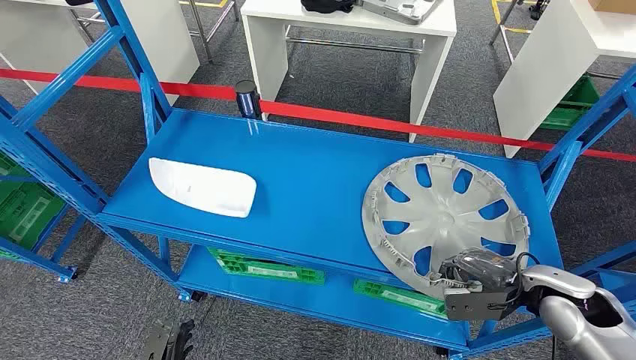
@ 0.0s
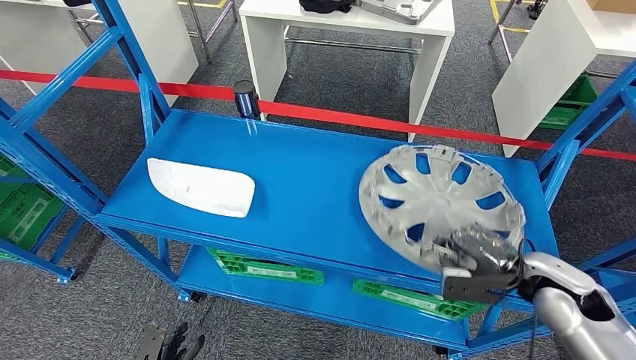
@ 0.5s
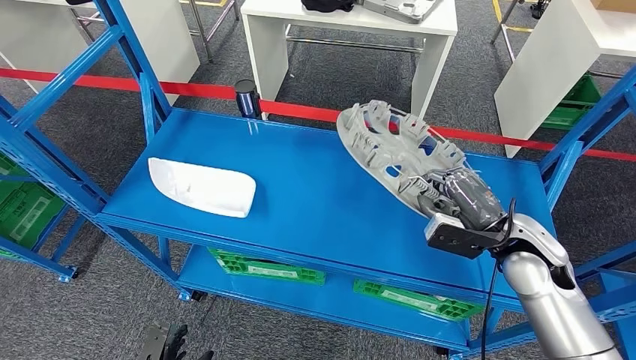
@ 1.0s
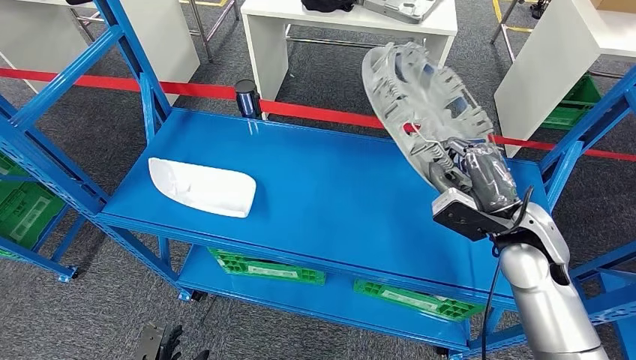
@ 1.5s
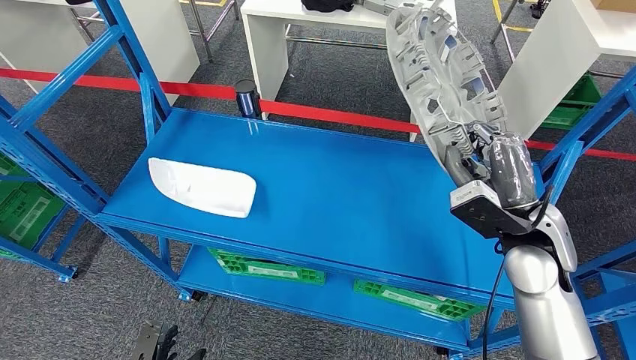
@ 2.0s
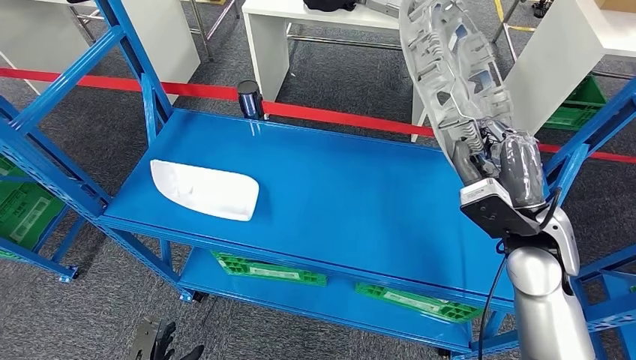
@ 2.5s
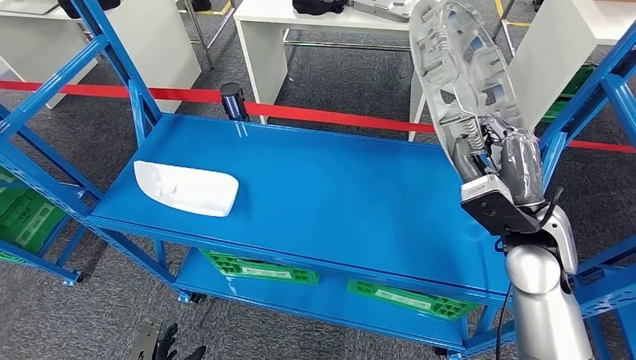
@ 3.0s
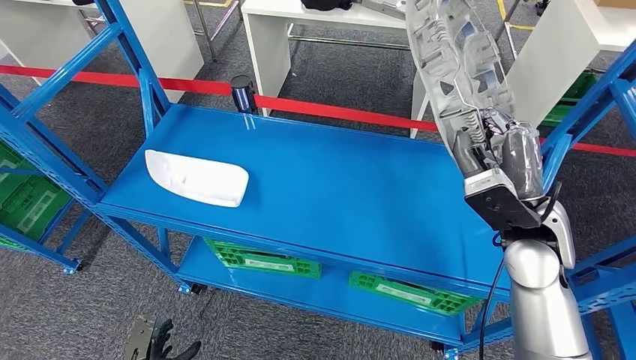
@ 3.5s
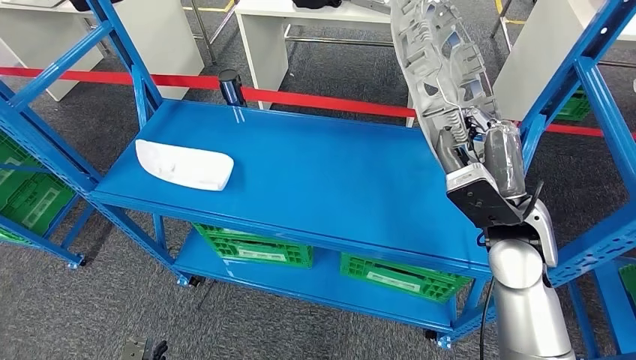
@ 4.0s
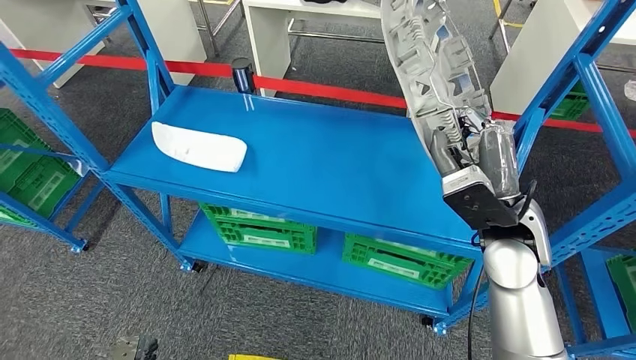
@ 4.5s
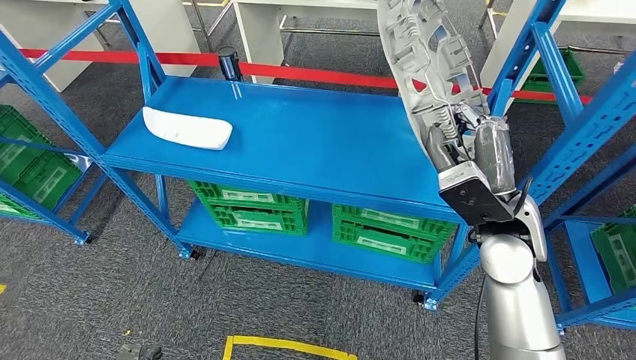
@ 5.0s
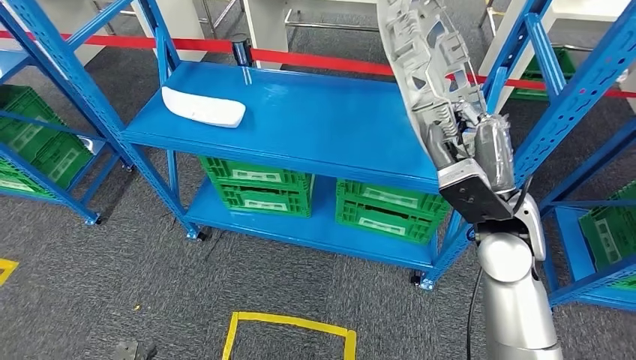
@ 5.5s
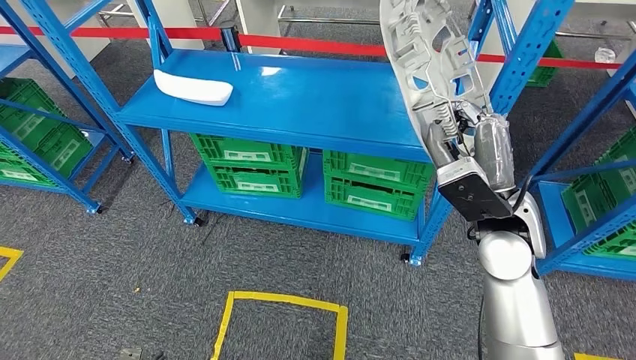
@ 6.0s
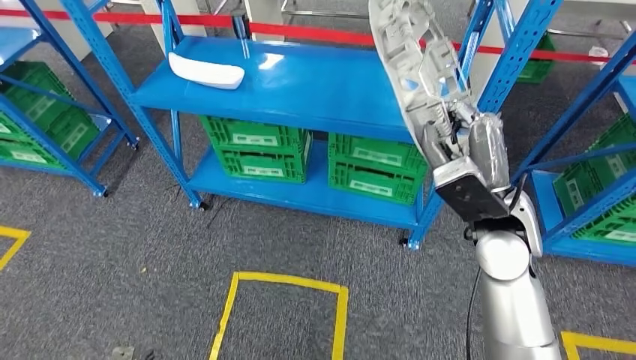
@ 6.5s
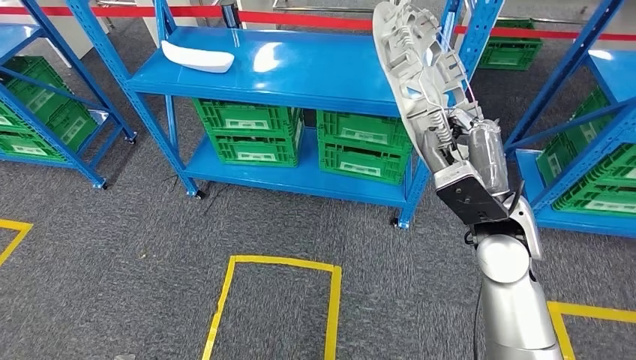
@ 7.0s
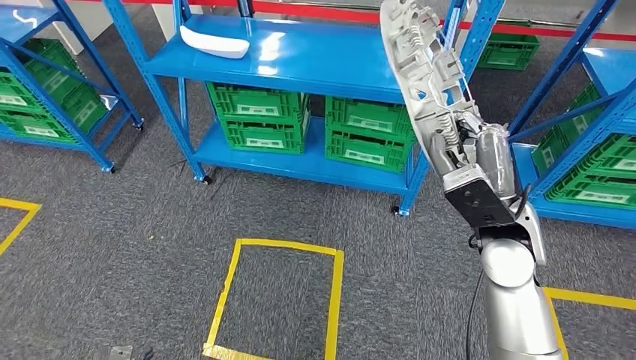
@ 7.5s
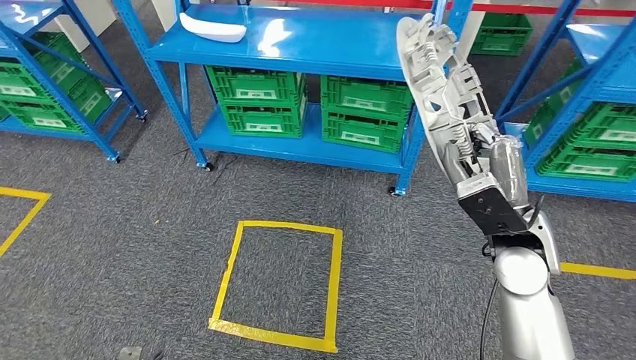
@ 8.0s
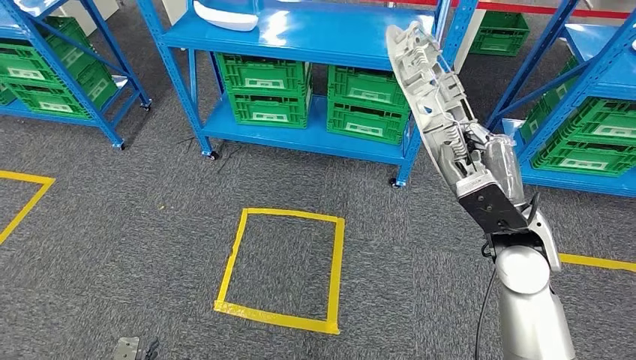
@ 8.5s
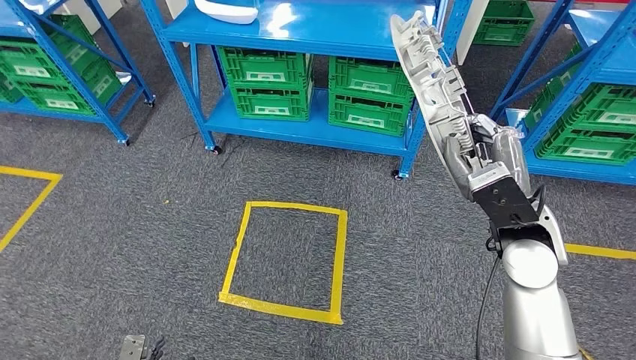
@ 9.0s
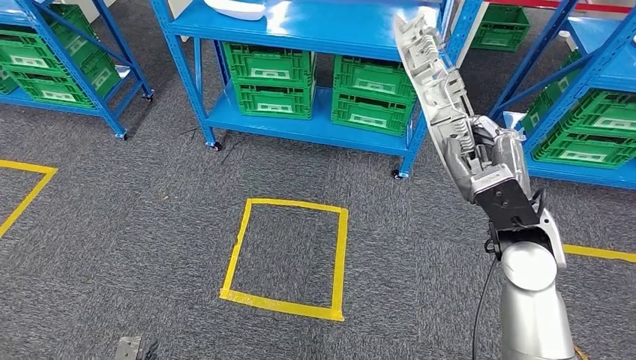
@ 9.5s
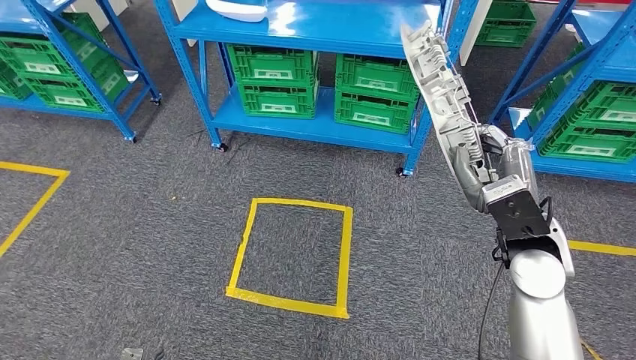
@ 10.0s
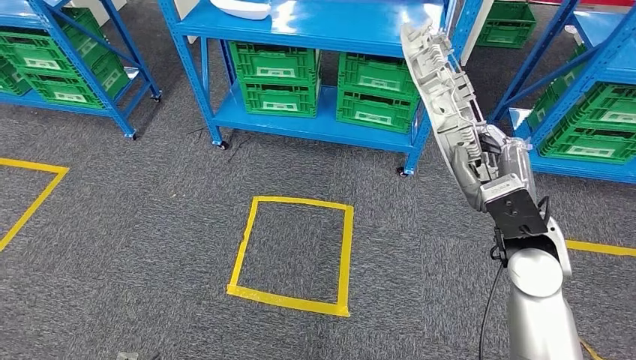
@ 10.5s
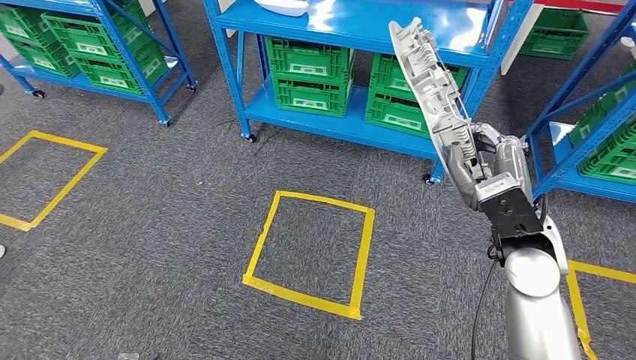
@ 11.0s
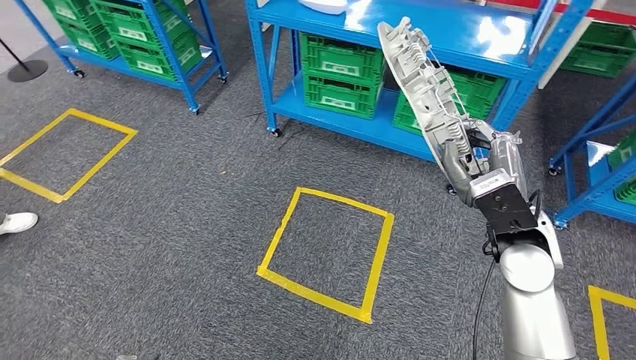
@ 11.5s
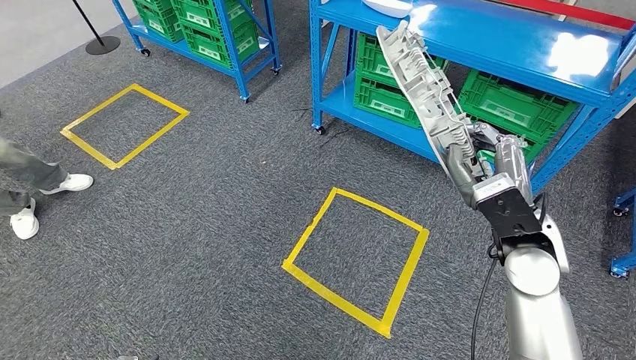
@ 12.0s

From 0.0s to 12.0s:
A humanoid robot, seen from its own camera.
Step, from 0.0s to 2.0s: Pick up the small component from the shelf.

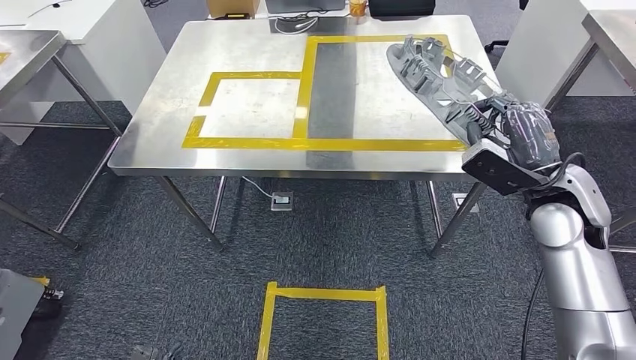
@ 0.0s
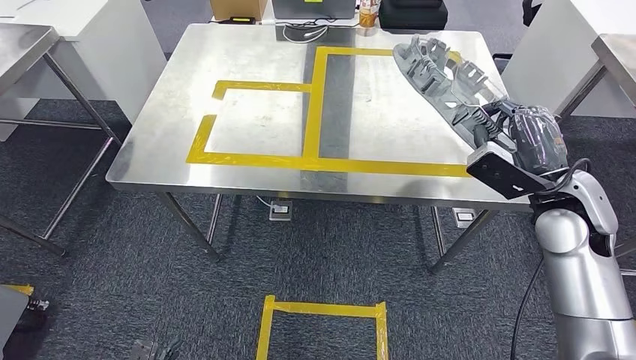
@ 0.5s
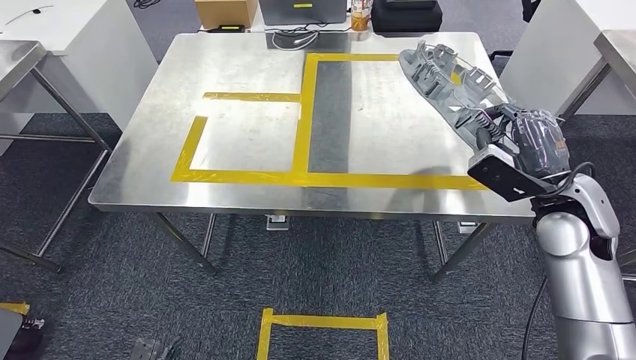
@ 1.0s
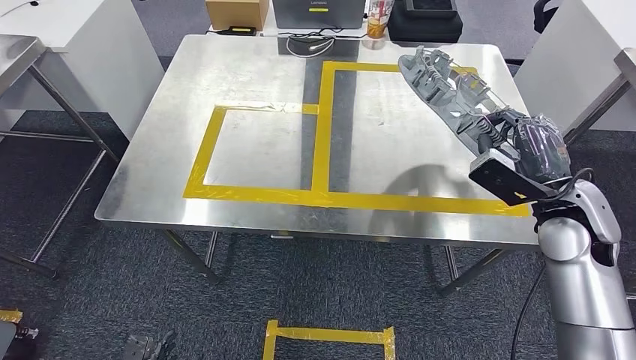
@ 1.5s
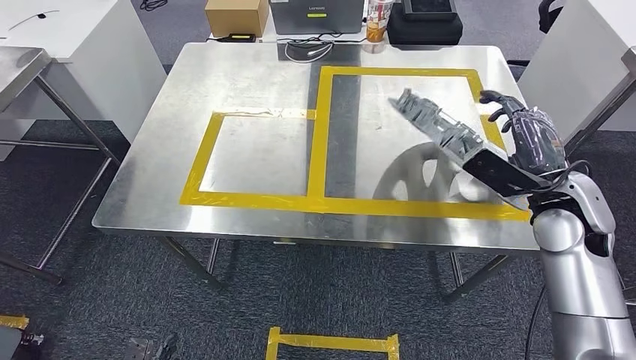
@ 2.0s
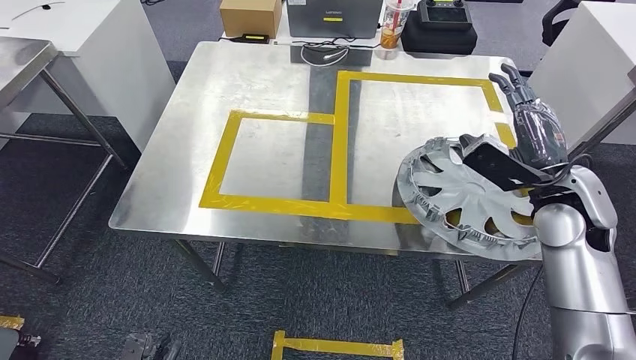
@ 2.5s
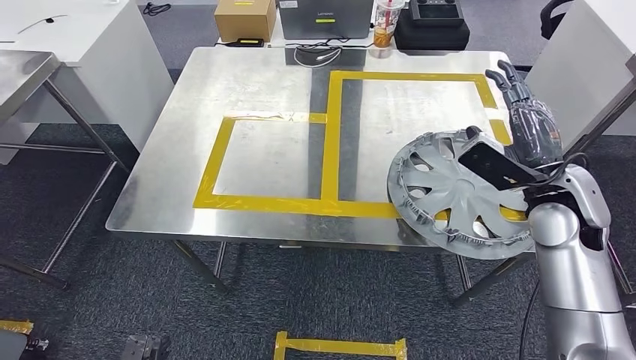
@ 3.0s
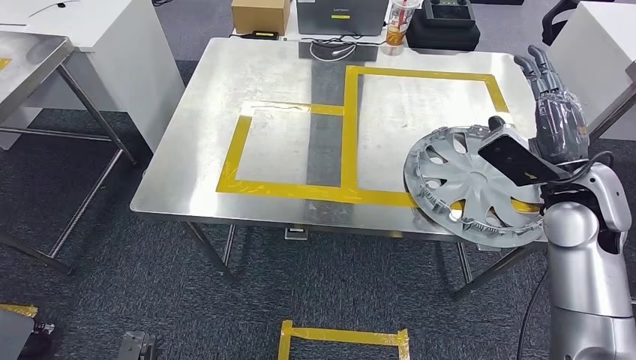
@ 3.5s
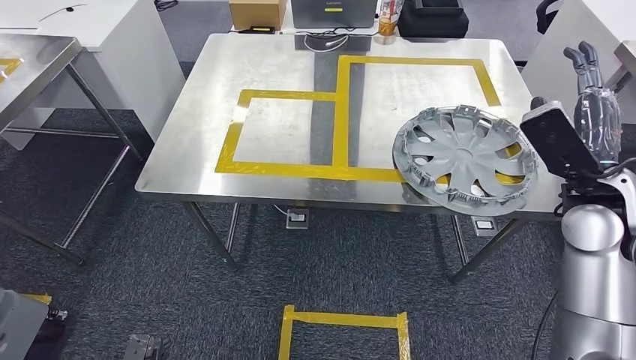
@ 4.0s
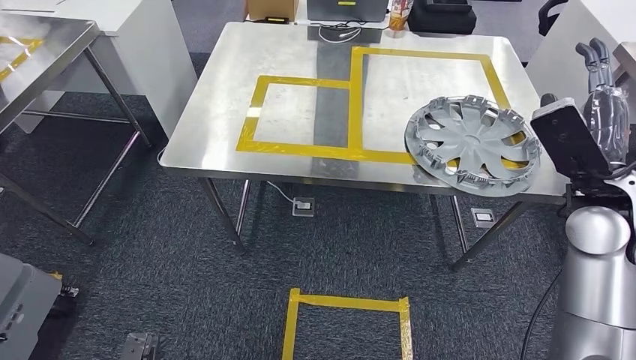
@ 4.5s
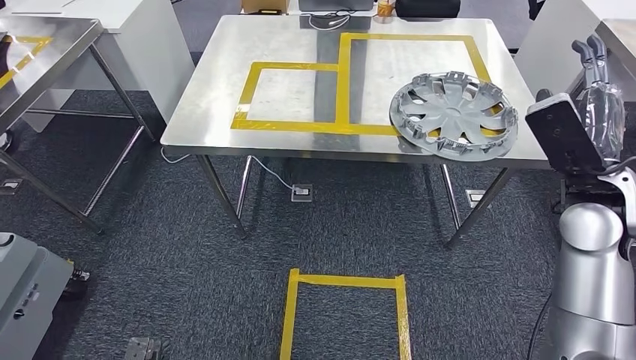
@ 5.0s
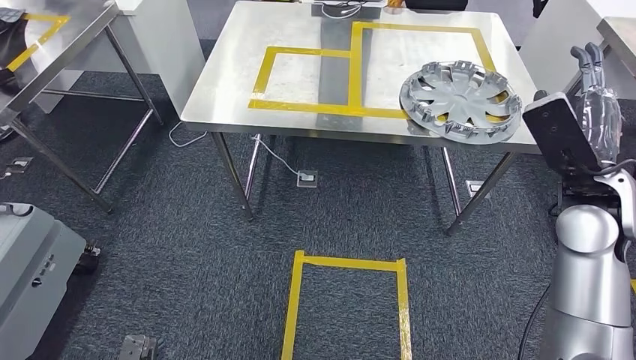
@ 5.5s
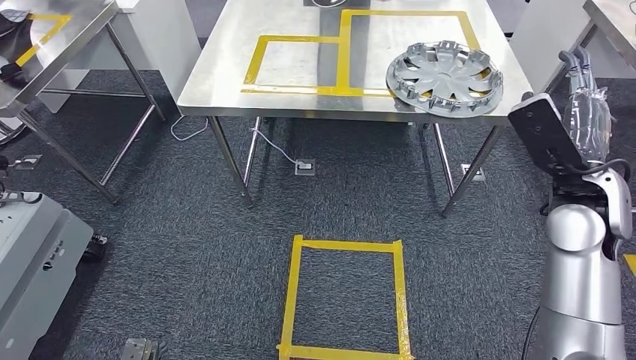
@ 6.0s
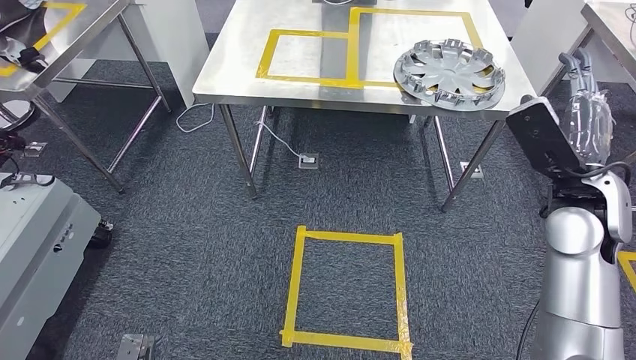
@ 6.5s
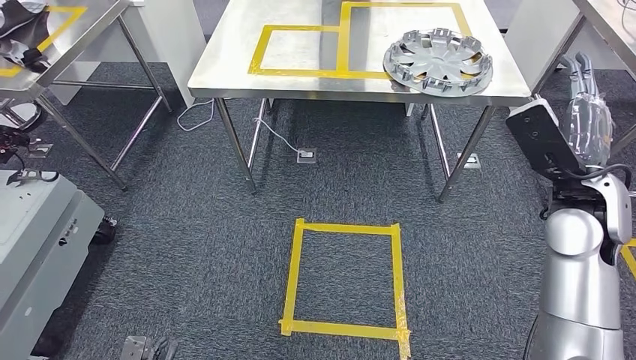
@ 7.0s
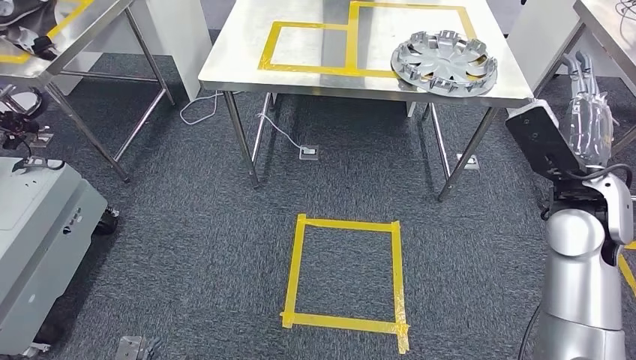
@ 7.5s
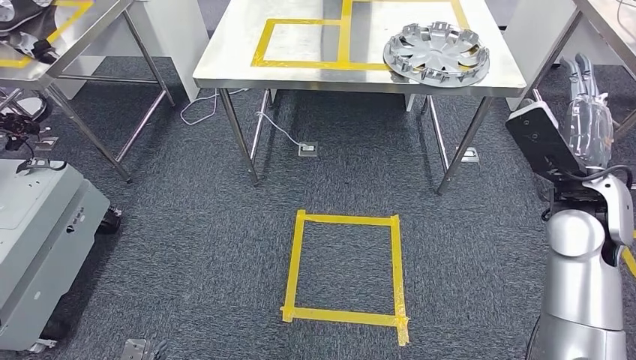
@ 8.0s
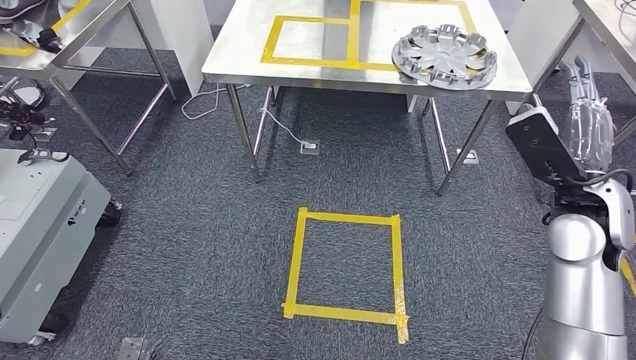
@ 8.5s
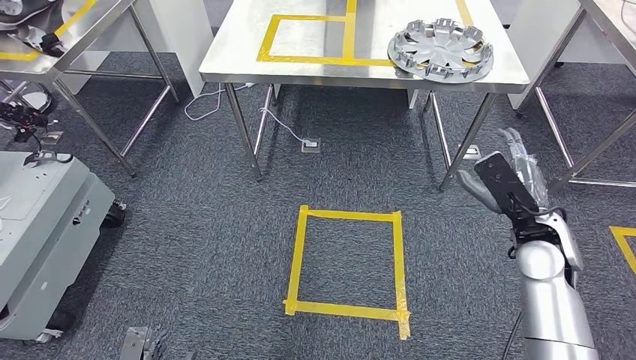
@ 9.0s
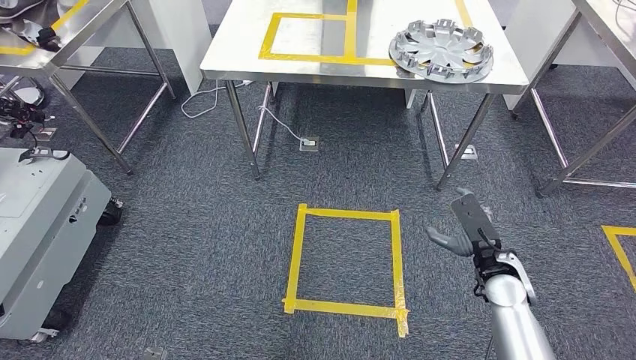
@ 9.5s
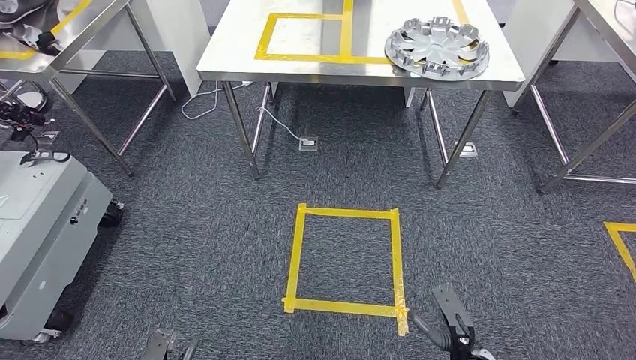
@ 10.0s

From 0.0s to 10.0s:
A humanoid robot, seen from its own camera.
Step, from 1.5s to 3.0s: Insert the small component into the corresponding slot on the workbench.
Step, from 3.5s to 10.0s: Return to the initial position at the workbench.
